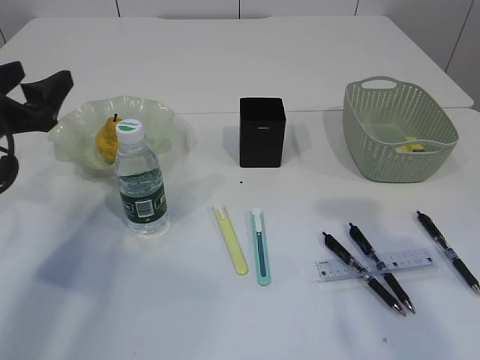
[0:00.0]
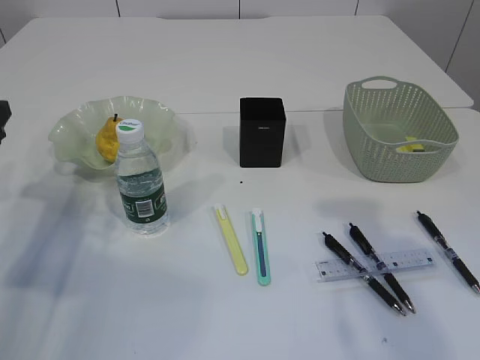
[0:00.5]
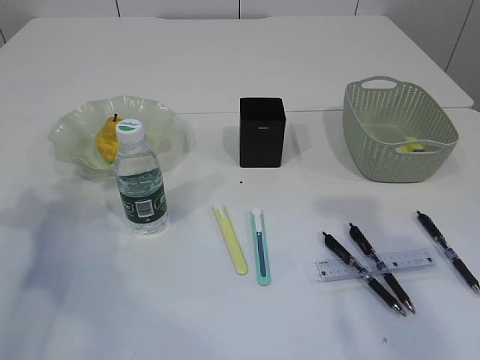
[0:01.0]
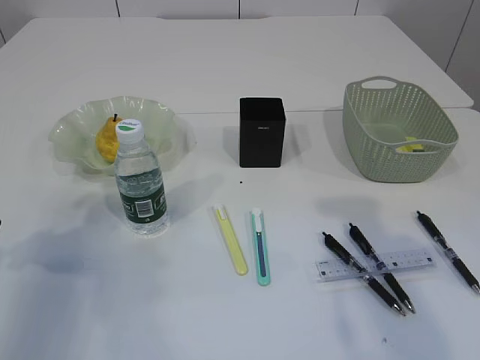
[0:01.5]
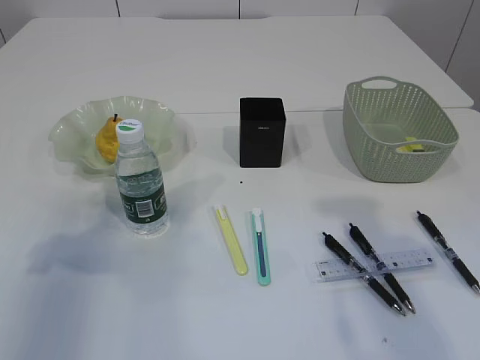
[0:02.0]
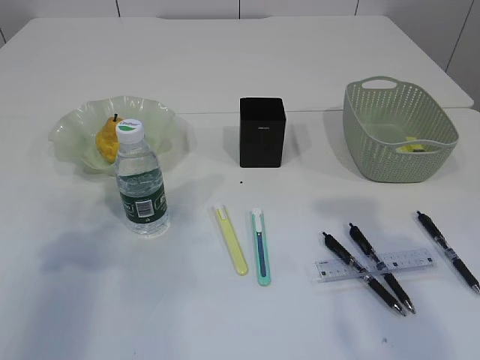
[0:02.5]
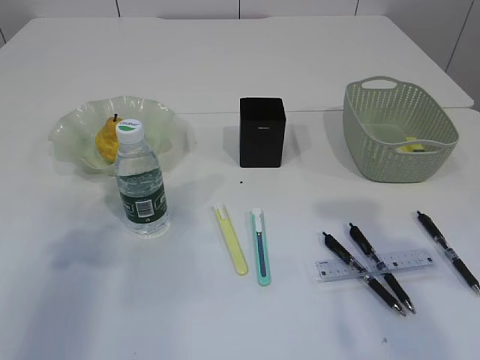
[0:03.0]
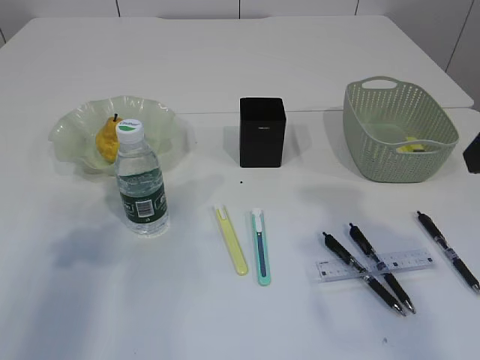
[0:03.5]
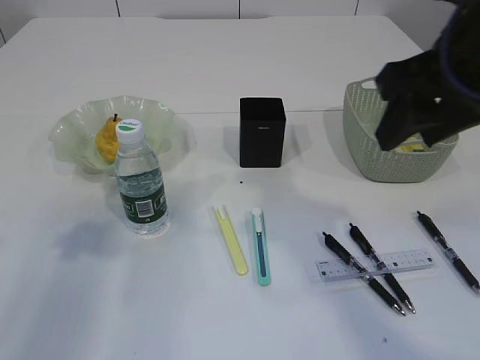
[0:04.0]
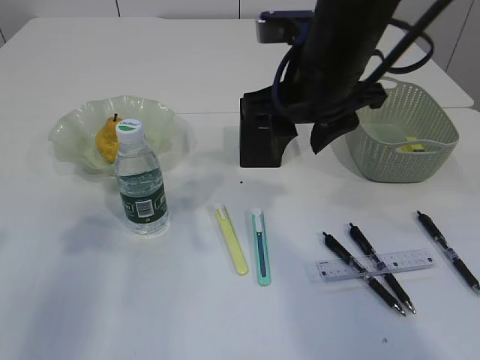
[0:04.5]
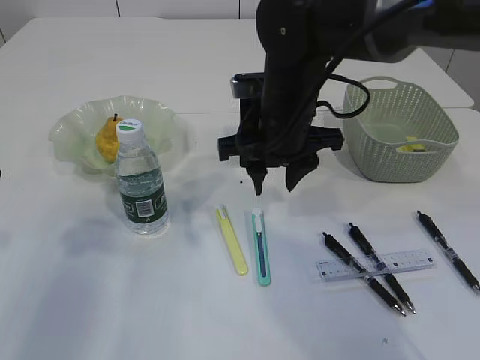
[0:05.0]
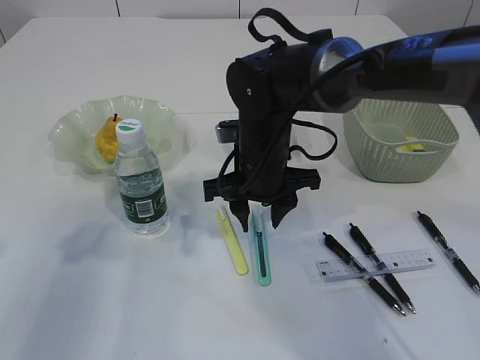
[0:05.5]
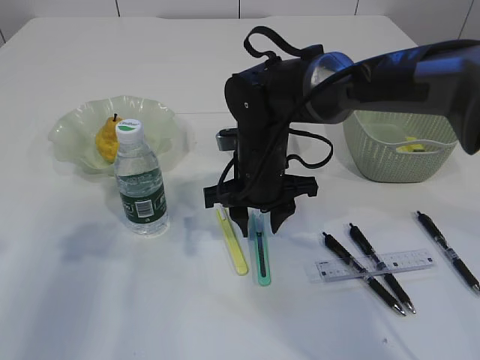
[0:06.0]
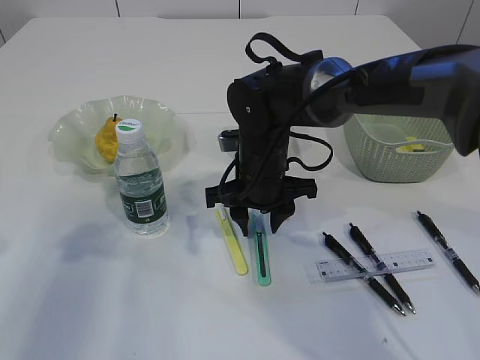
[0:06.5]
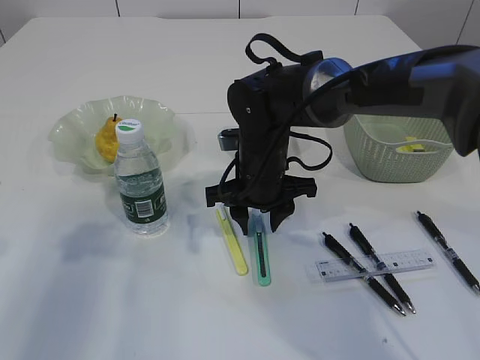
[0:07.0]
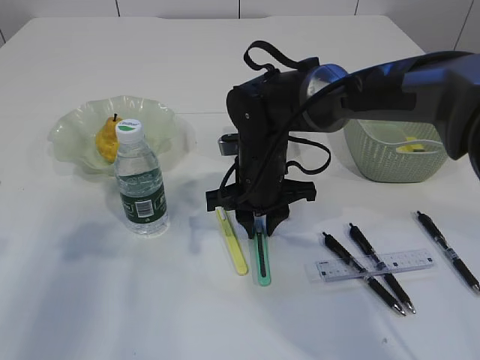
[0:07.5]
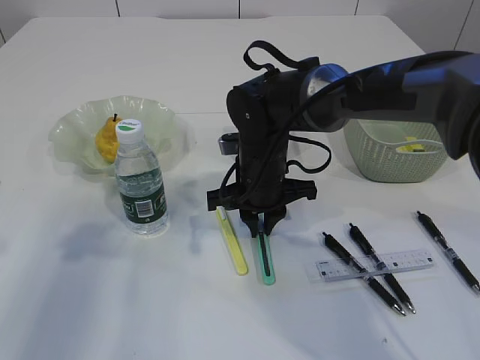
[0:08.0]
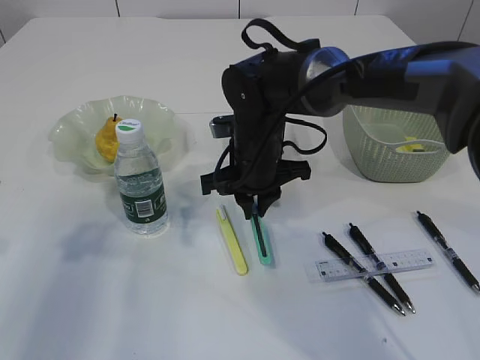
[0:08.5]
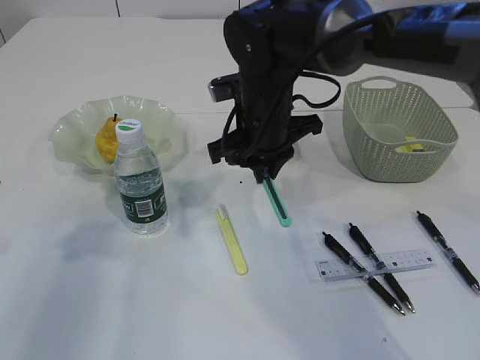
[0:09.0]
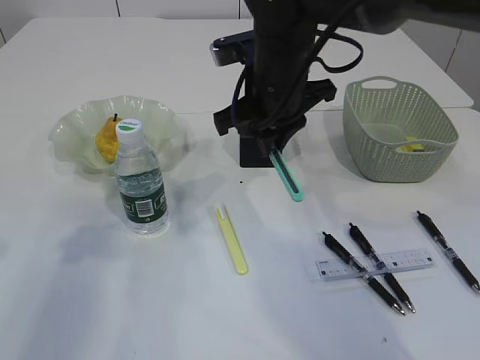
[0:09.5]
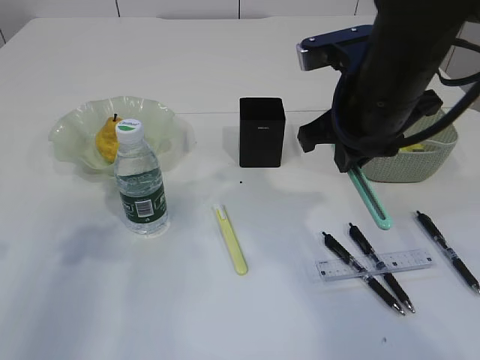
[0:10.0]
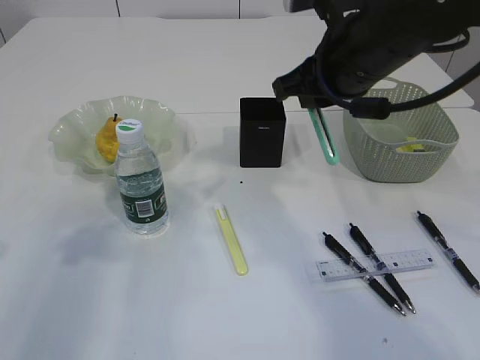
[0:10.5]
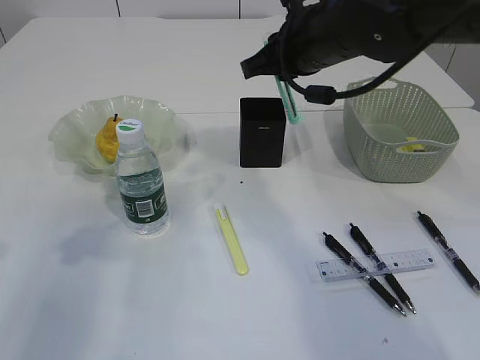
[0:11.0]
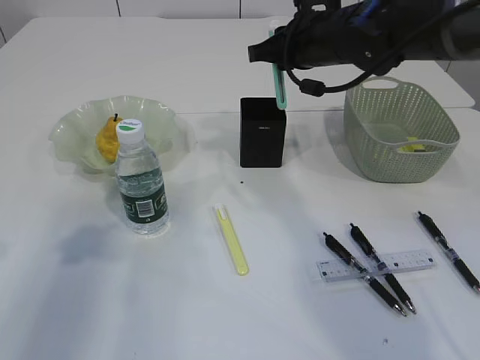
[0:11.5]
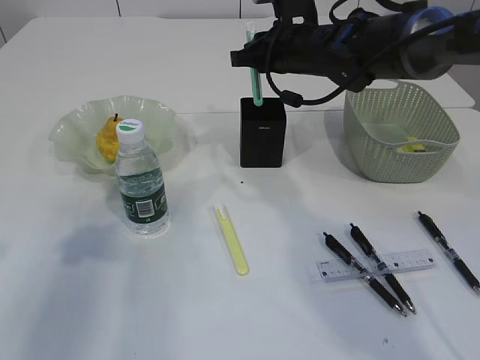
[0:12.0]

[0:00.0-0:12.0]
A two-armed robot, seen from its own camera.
Step, 0:00.0 to 0:08.5: pick up the blue knife.
0:00.0 to 0:02.0: The left gripper goes roughly 10 cm backward and upward.
0:02.0 to 0:04.0: The right gripper goes about 10 cm to the left and forward.
0:04.0 to 0:06.0: The right gripper shifts approximately 25 cm downward, to the left and forward.
0:06.0 to 0:08.0: The right gripper closes up.
0:08.0 to 0:10.0: The right gripper moves upward, to the right and backward, approximately 20 cm.
0:10.0 to 0:12.0: The right gripper is displaced forward by roughly 15 cm.

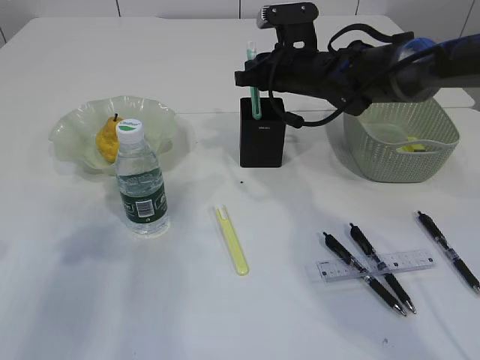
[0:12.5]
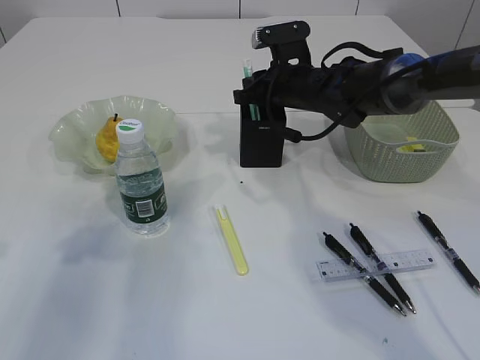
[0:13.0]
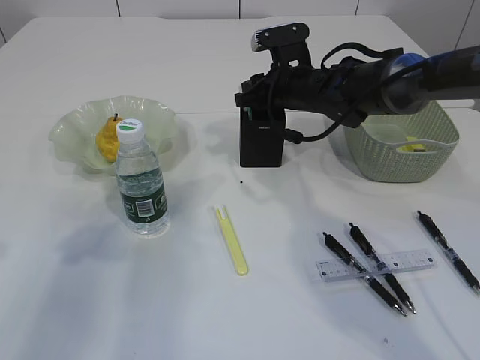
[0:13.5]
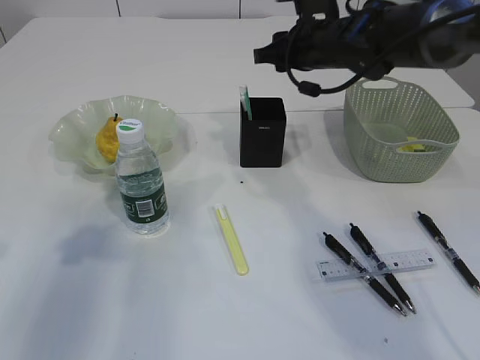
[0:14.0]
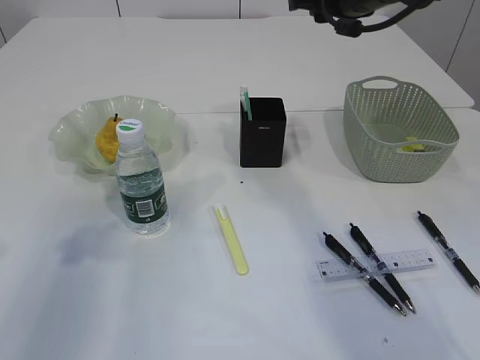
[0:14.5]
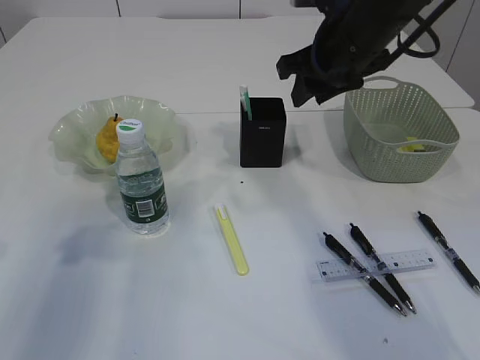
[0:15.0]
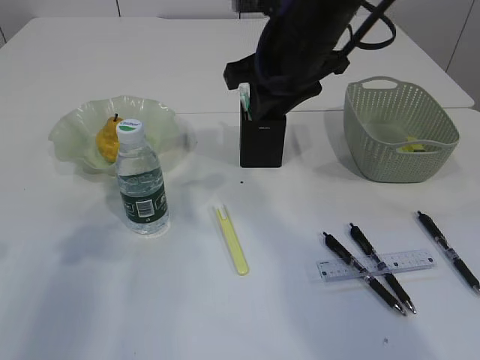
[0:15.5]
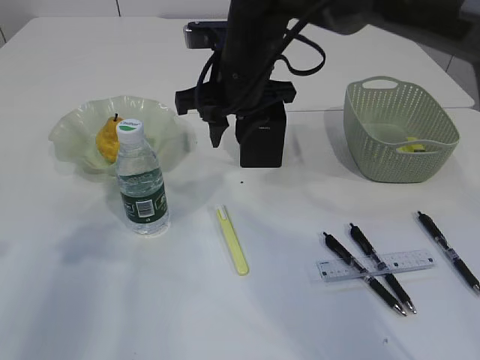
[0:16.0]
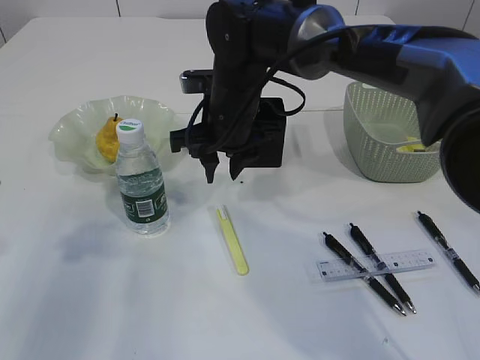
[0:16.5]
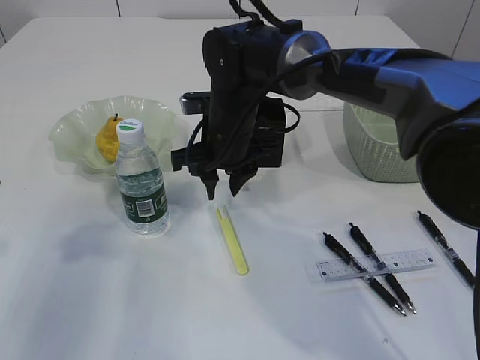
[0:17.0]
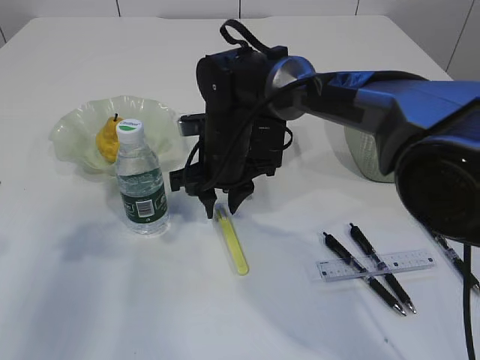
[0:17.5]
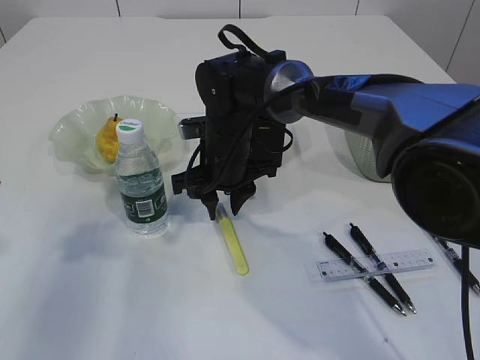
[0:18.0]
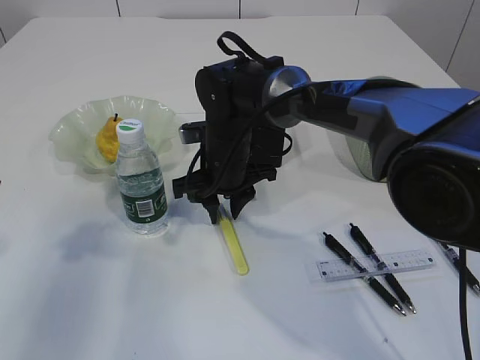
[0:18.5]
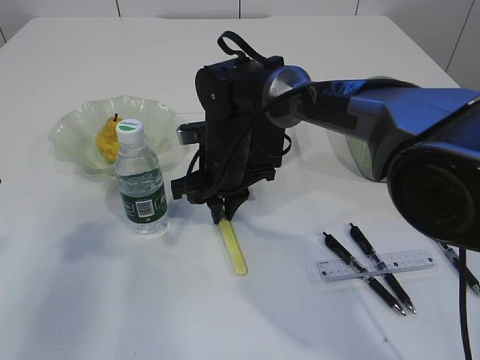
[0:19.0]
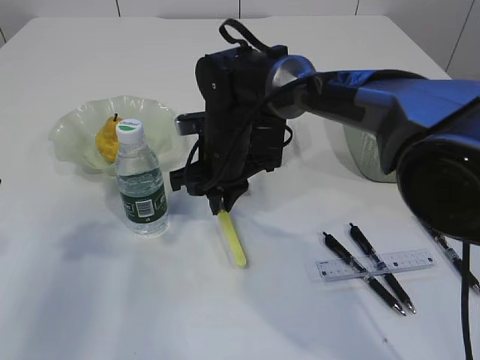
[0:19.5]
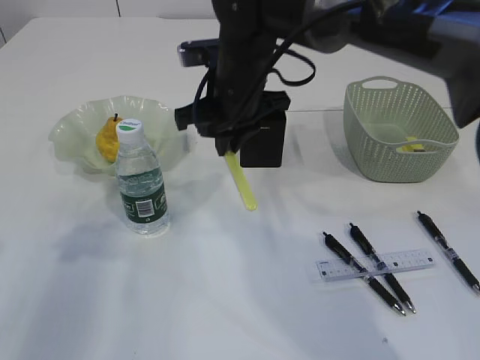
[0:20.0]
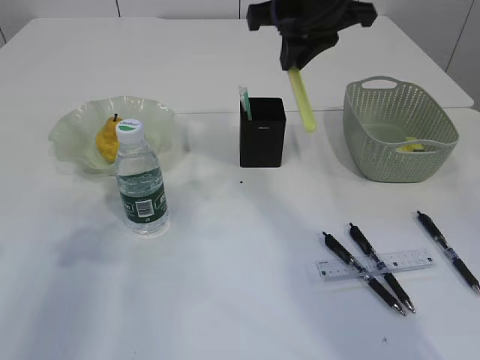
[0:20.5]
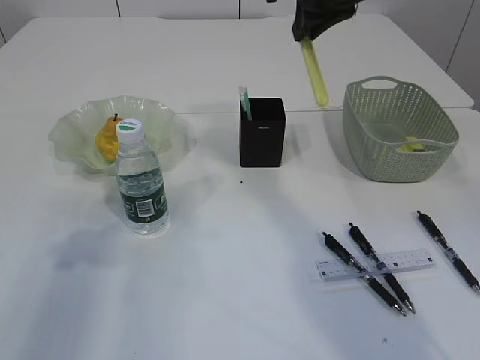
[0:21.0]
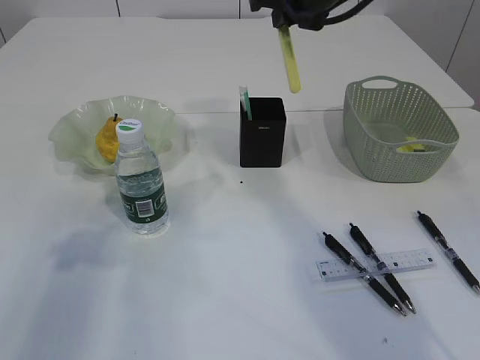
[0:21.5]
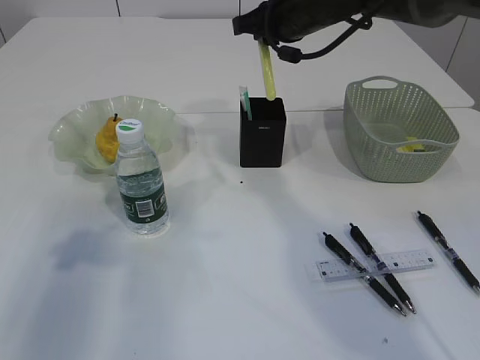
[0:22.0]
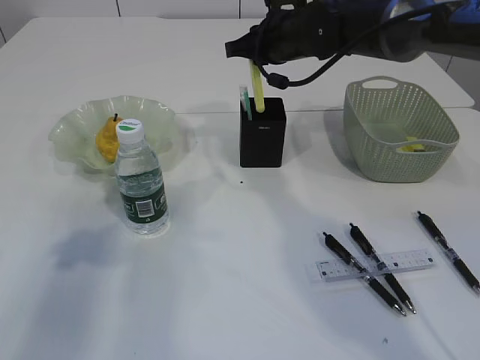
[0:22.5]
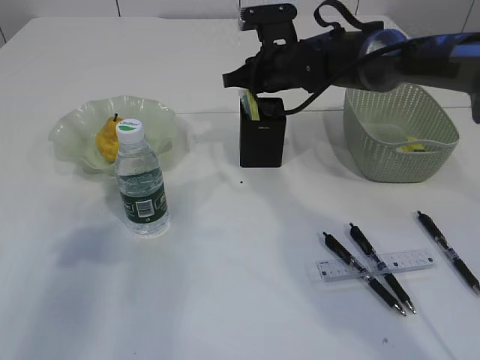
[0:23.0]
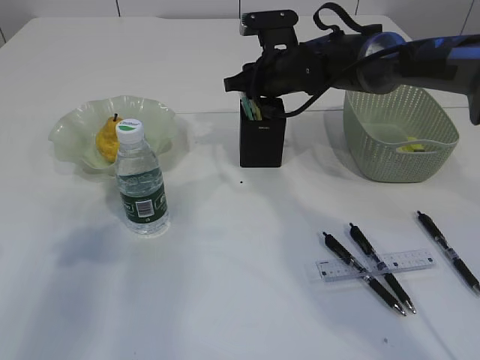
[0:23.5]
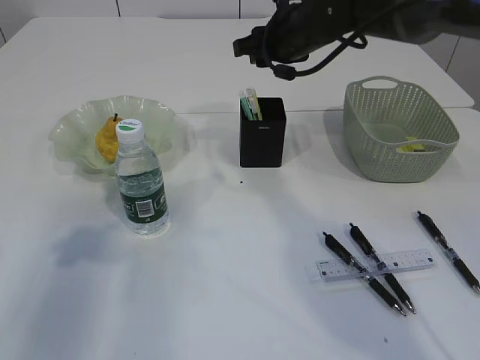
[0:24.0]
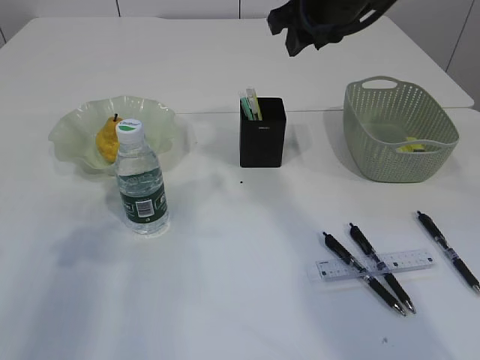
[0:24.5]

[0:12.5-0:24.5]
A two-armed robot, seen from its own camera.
Step, 0:14.0 to 0:19.5: pick up the yellow knife.
Step, 0:20.0 to 0:23.5: place the yellow knife into the pen holder.
0:12.5 to 0:14.5: The right gripper goes roughly 10 cm upward, and opens its fingers.
0:14.5 to 0:16.5: The right gripper moves to the left and downward, some 20 cm.
0:16.5 to 0:18.5: The right gripper heads downward, covering roughly 5 cm.
0:18.5 to 0:20.5: The right gripper is displaced upward and to the right by approximately 25 cm, and closes its fingers.
0:20.5 to 0:22.5: The right gripper travels downward and forward by approximately 10 cm.
0:22.5 to 0:24.5: The right gripper travels upward and backward by about 10 cm, and opens up.

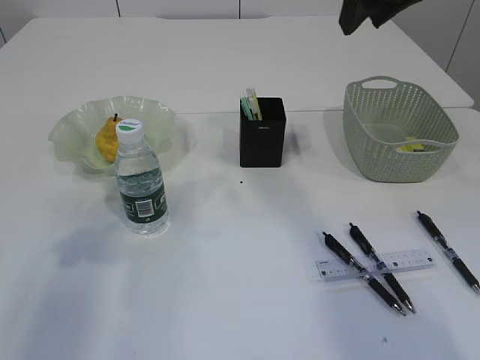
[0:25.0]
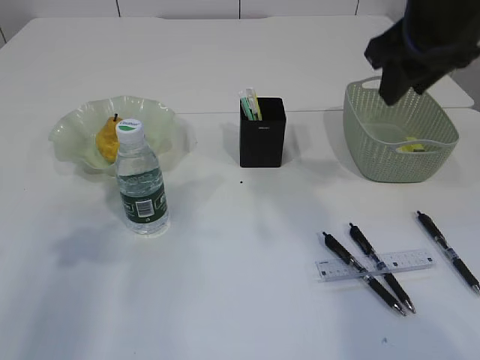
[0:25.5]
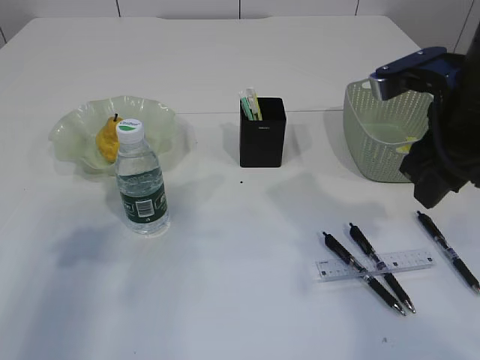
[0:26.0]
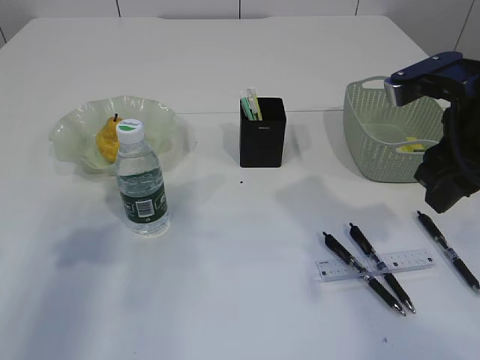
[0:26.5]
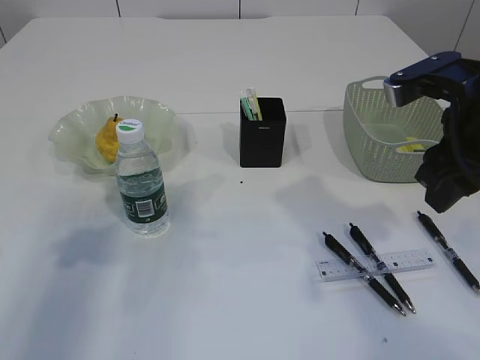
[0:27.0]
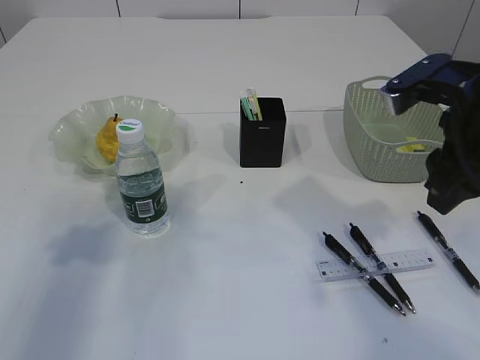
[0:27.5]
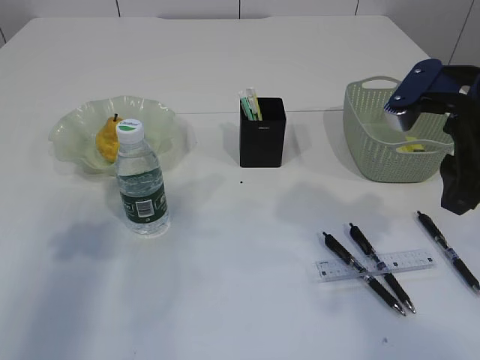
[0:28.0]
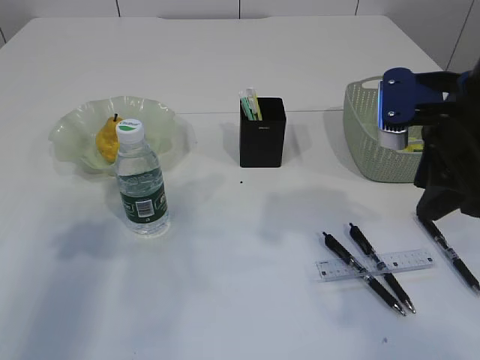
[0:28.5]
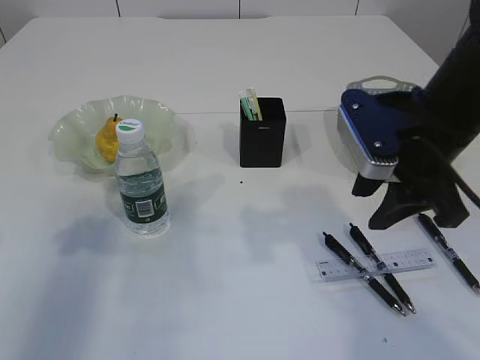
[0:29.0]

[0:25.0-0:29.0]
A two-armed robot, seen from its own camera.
0:25.0 to 0:27.0: The right gripper shifts about 15 cm downward and backward.
